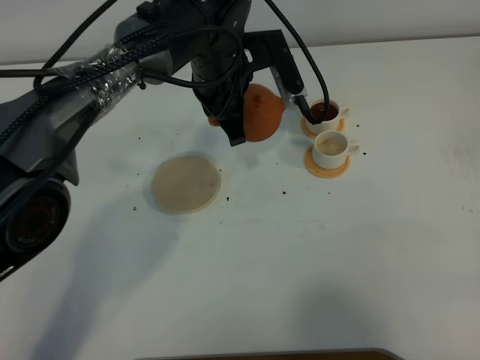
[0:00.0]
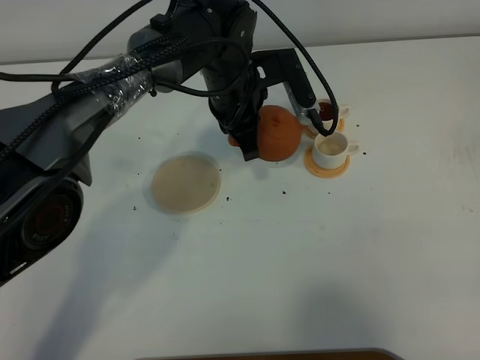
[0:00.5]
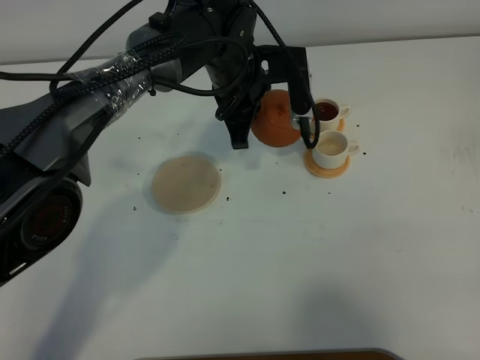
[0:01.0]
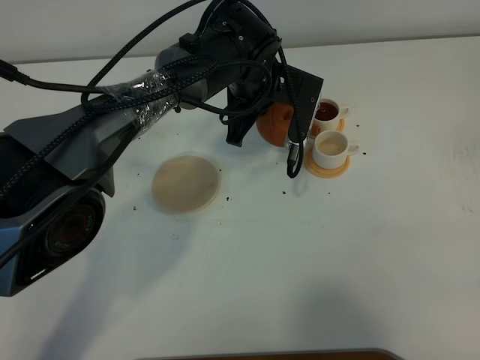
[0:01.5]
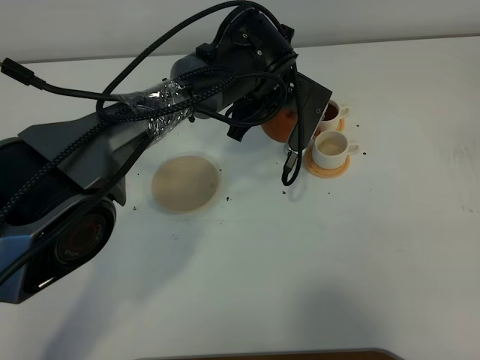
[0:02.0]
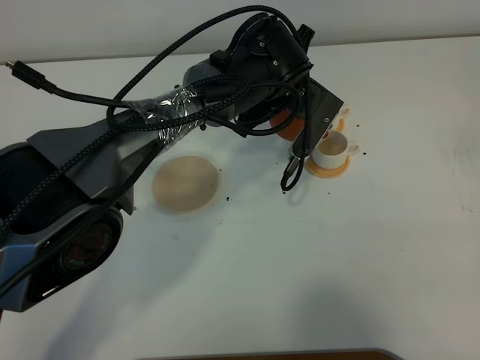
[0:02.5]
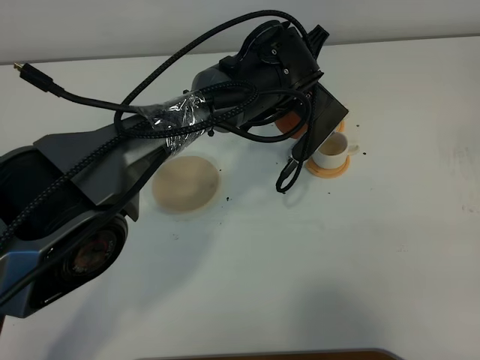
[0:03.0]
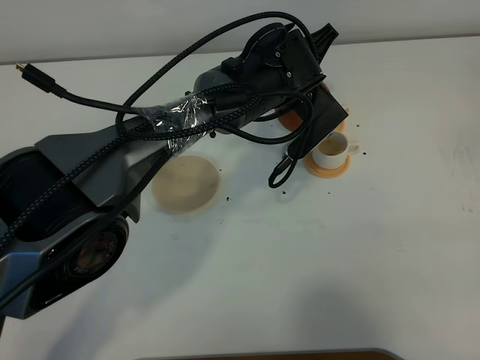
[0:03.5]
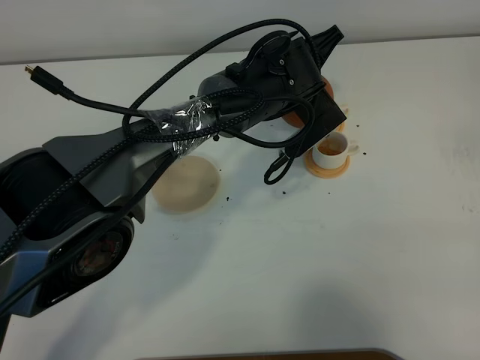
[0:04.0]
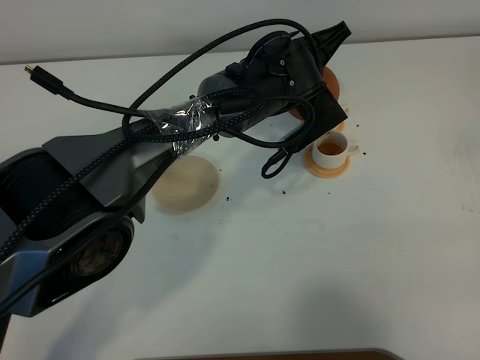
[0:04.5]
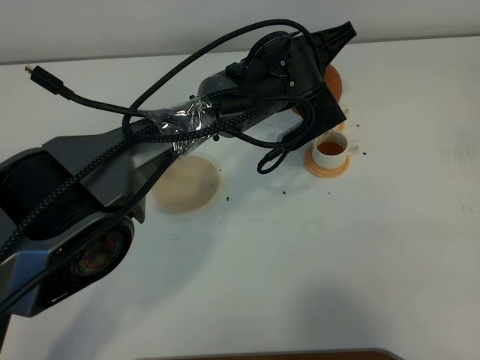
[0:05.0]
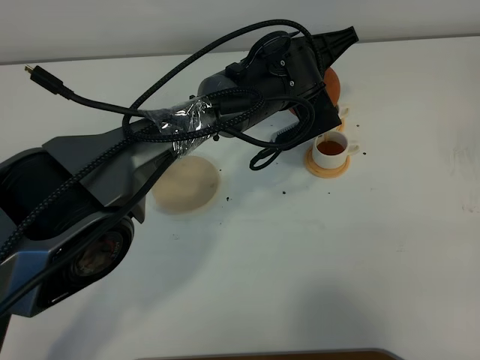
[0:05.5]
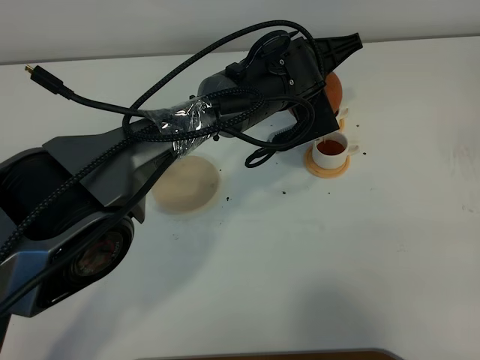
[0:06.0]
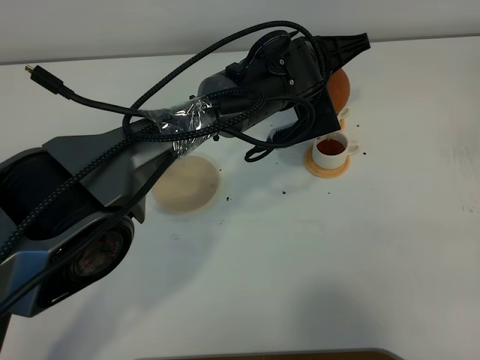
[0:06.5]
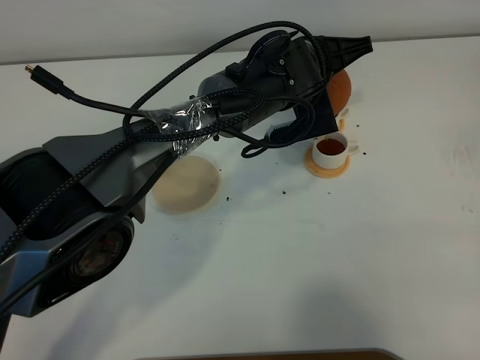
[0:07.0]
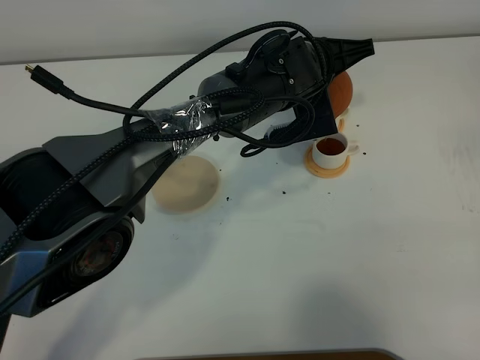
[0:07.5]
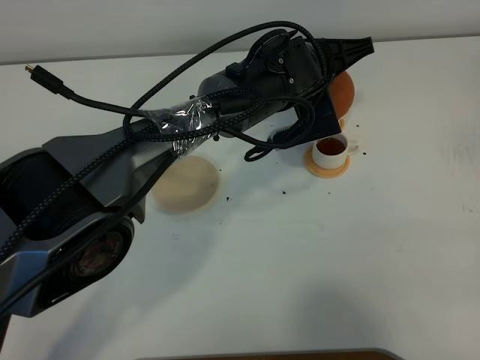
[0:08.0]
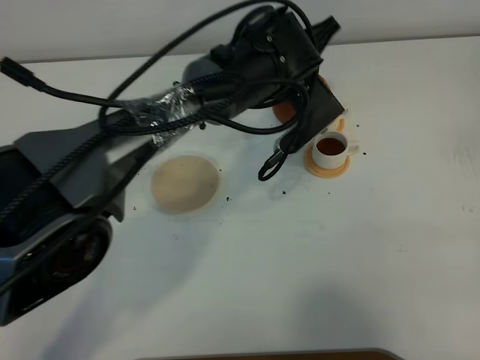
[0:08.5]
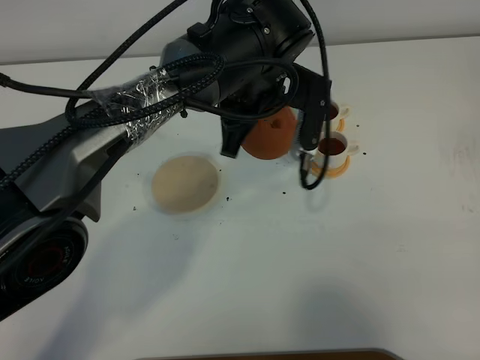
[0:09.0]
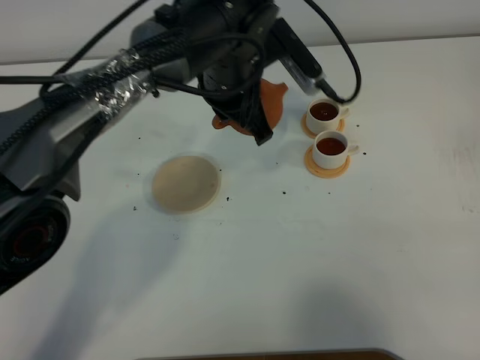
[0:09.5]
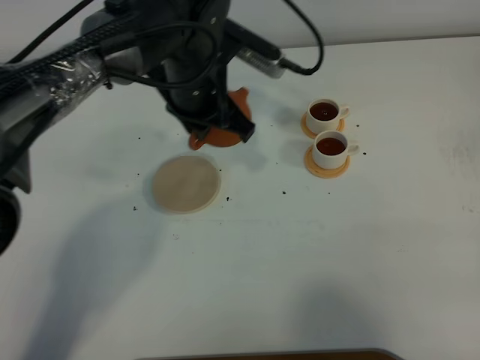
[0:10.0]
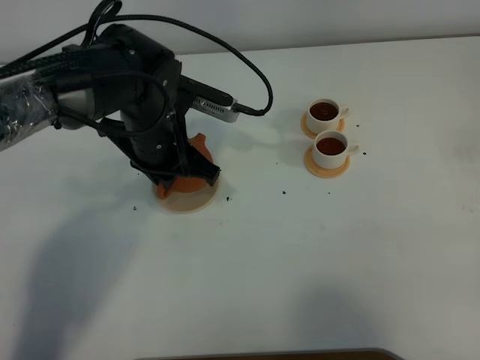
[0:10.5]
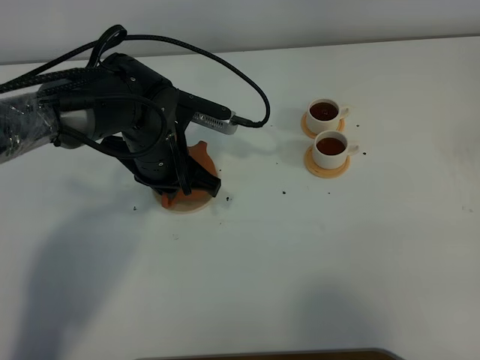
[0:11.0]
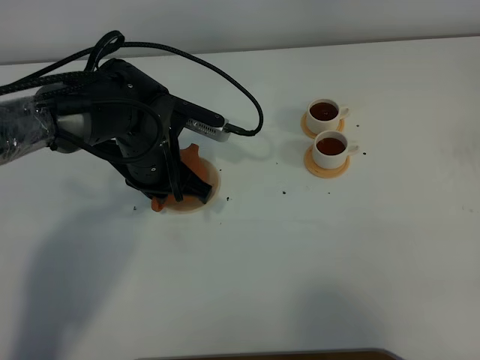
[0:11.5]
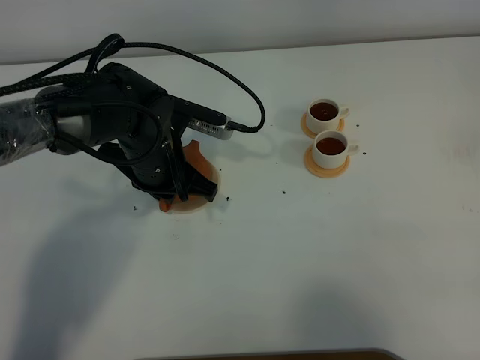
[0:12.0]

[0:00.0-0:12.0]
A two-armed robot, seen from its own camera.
Task of the whole recording: grasp the brown teapot and pour the tea into the two white teacups one by one, put the brown teapot back in its original place.
Step, 0:00.0 to 0:09.0: Pour tea into the teacup with the left gripper.
0:00.0 to 0:02.0: The left gripper heads to the right, covering roughly 5 cm.
0:04.0 to 0:06.0: The grippers make only small movements.
0:06.0 to 0:08.0: There are only small adjustments of the grippers.
0:08.0 to 0:10.0: The left gripper heads to the left, covering about 15 cm.
0:10.0 to 0:12.0: The left gripper heads downward and to the left, covering approximately 10 cm.

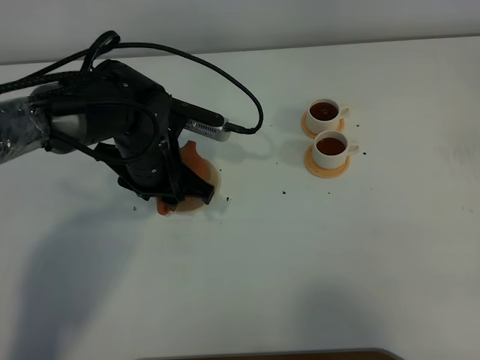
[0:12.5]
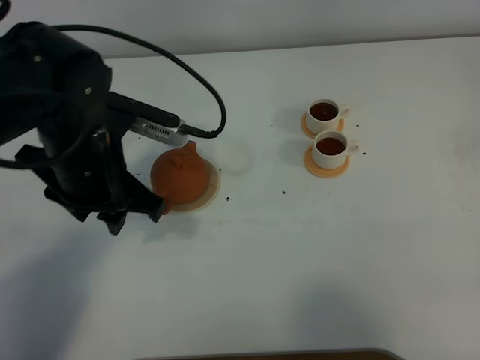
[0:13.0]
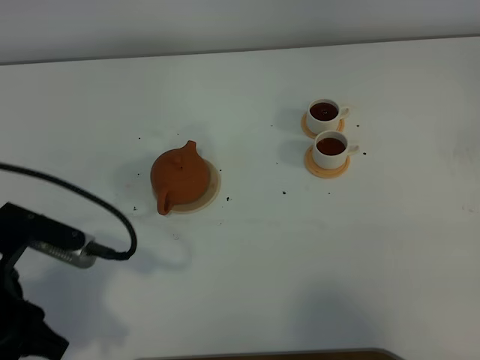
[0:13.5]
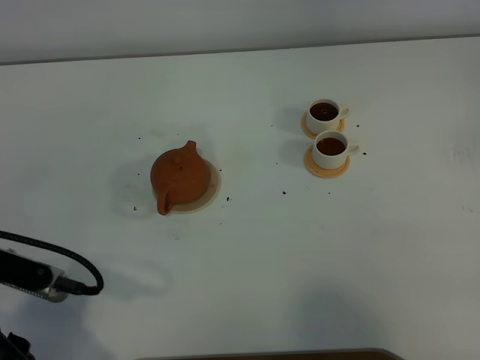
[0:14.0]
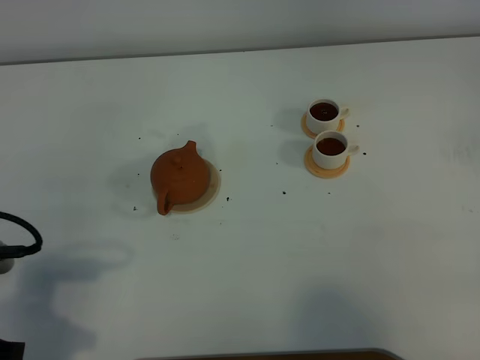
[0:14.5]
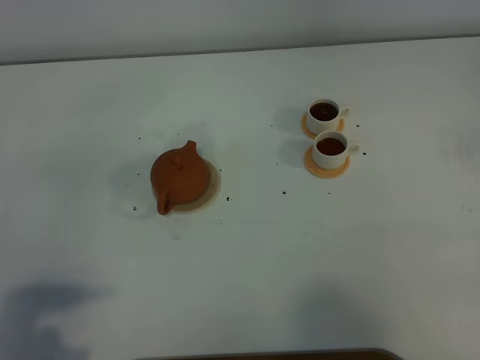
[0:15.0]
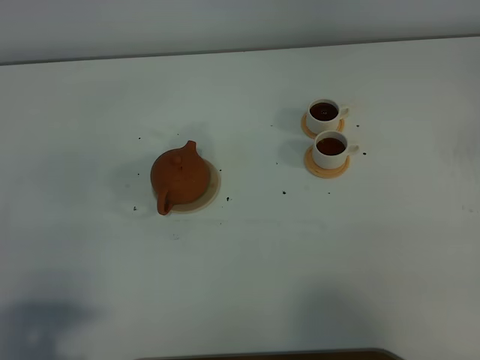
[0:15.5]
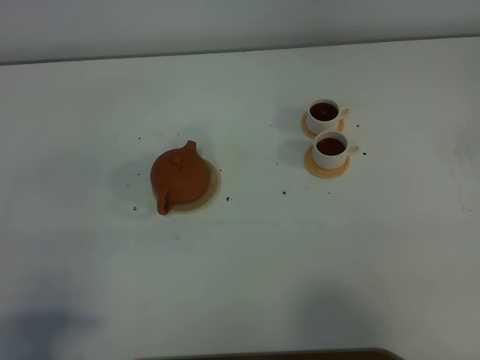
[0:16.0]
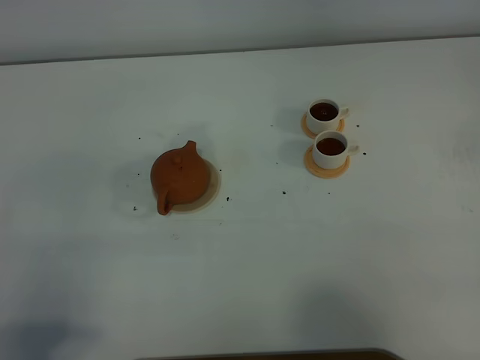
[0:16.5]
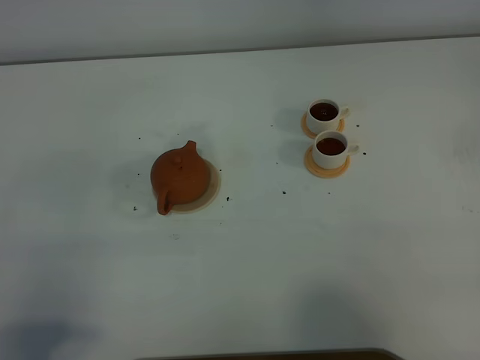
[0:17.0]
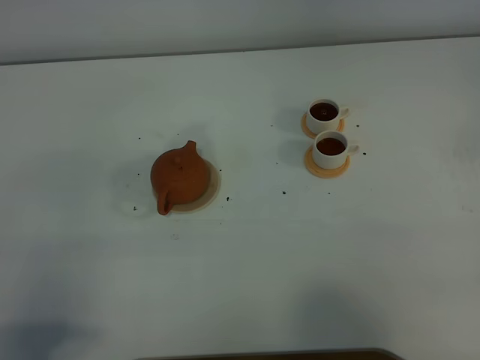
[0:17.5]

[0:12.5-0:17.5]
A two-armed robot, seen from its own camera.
Task of the whole recording: grasp the brown teapot and pour the tea into the two white teacups one by one, put the brown teapot back in its original place.
0:12.5 to 0:15.0: The left gripper travels backward and to the left by approximately 35 cm.
